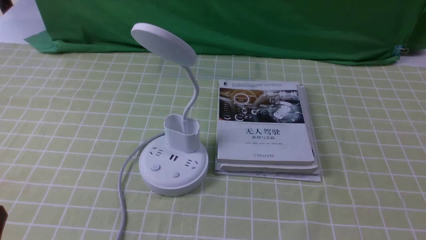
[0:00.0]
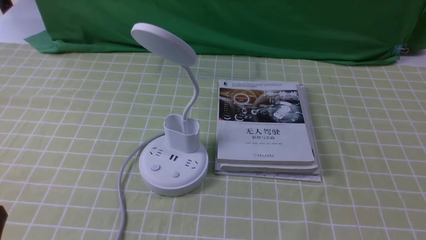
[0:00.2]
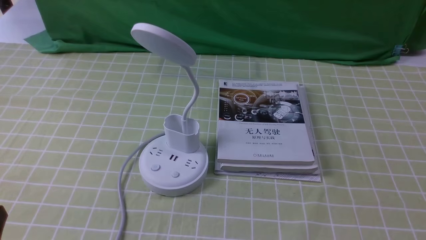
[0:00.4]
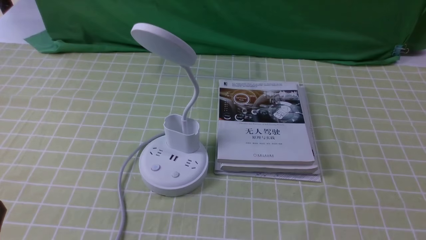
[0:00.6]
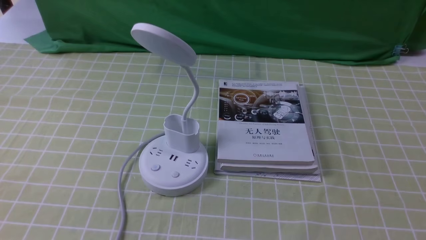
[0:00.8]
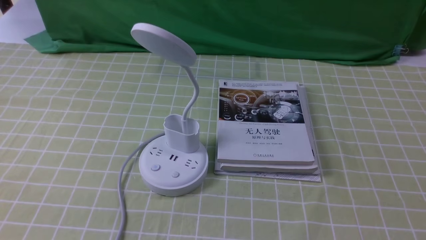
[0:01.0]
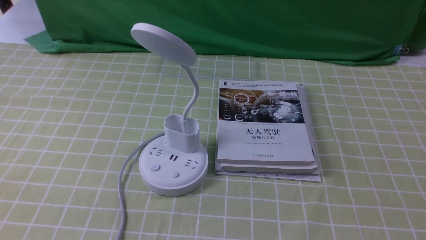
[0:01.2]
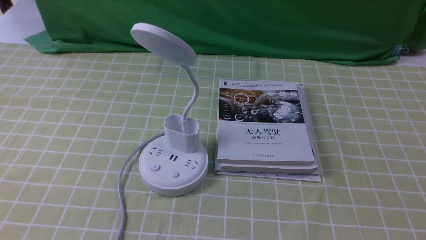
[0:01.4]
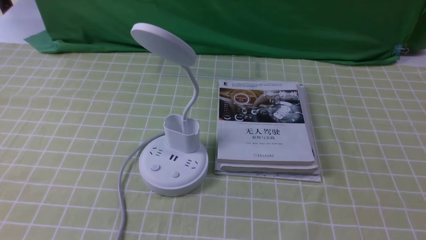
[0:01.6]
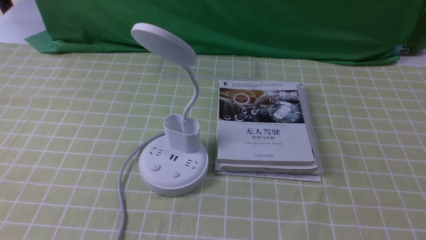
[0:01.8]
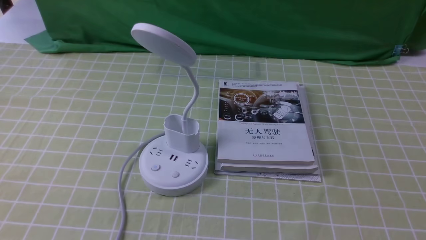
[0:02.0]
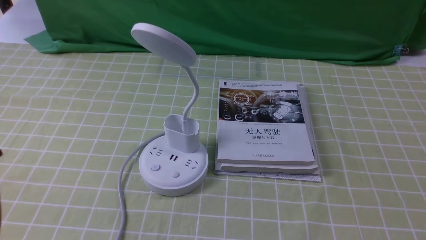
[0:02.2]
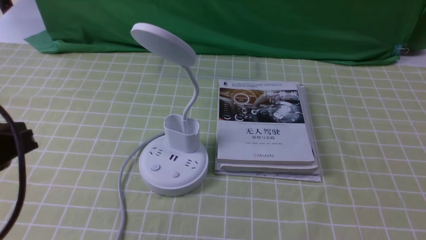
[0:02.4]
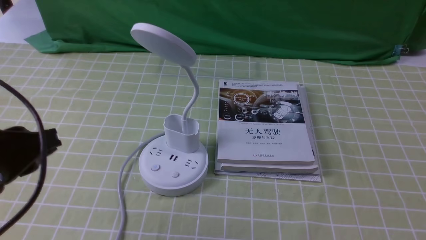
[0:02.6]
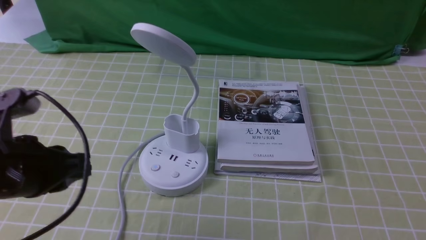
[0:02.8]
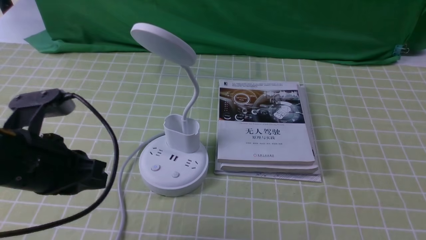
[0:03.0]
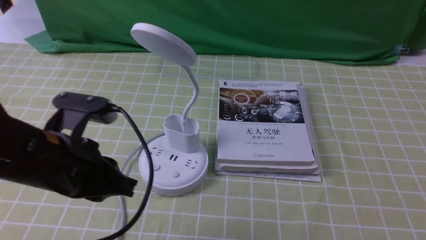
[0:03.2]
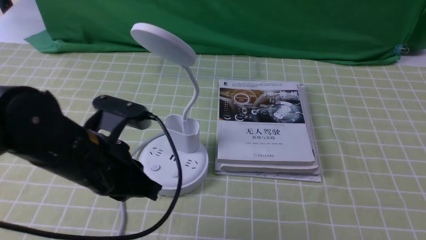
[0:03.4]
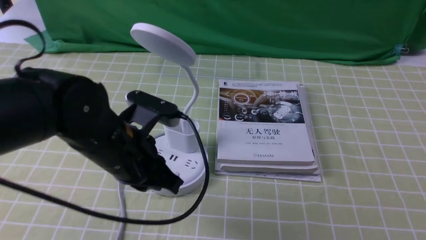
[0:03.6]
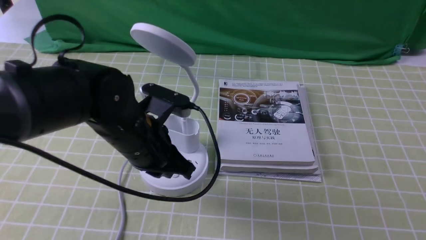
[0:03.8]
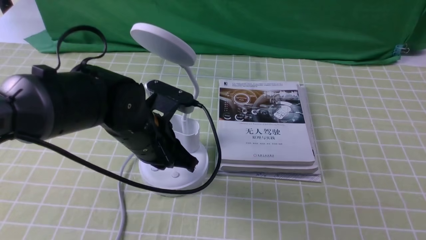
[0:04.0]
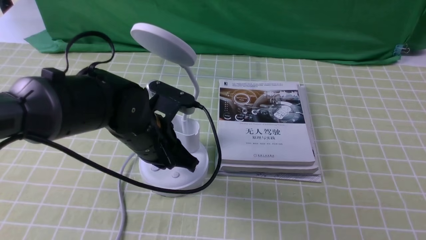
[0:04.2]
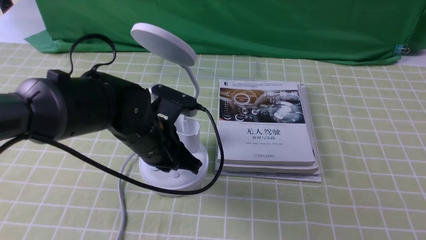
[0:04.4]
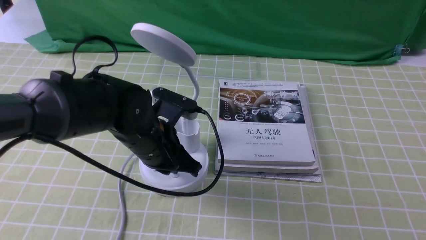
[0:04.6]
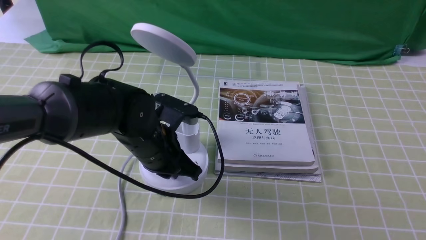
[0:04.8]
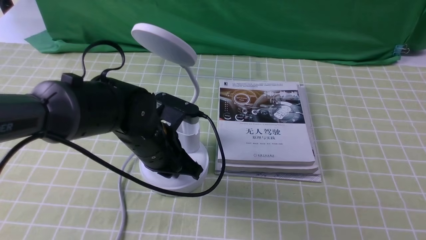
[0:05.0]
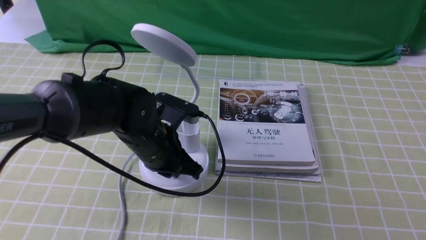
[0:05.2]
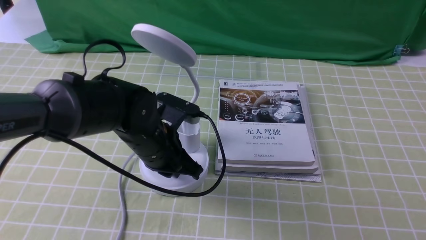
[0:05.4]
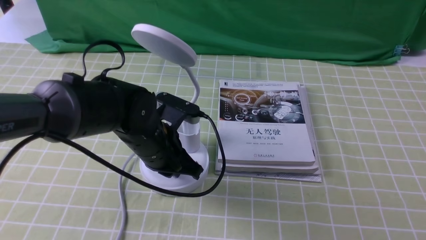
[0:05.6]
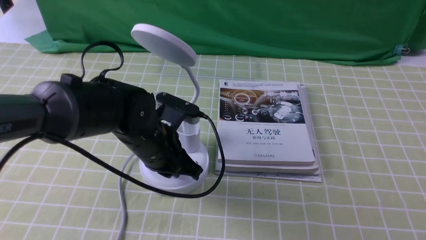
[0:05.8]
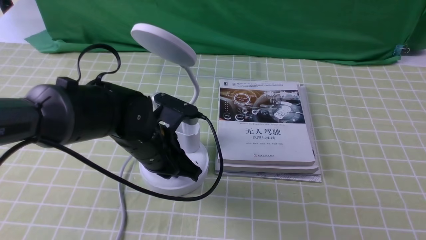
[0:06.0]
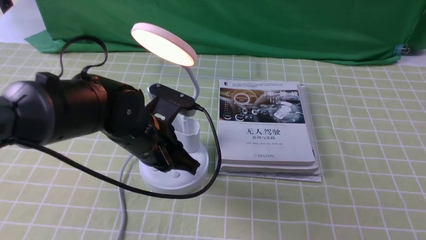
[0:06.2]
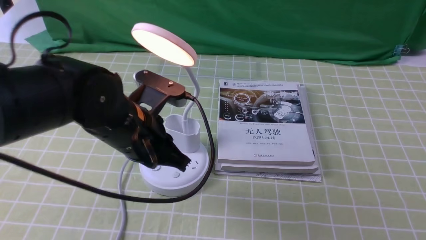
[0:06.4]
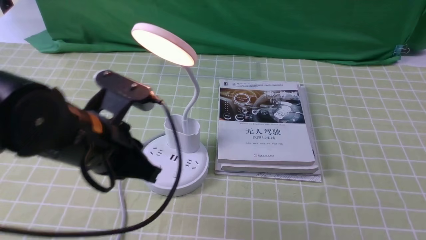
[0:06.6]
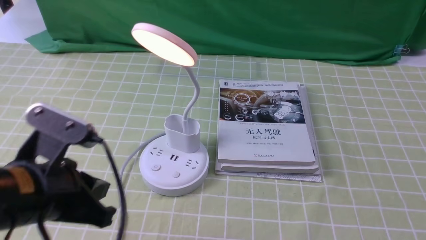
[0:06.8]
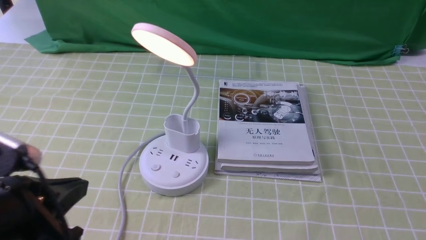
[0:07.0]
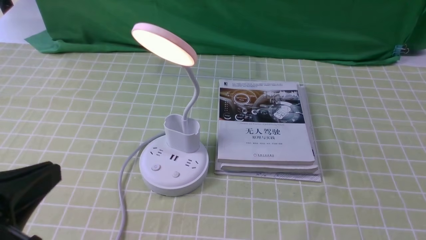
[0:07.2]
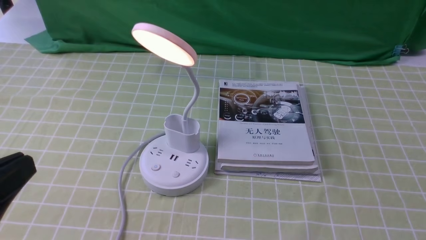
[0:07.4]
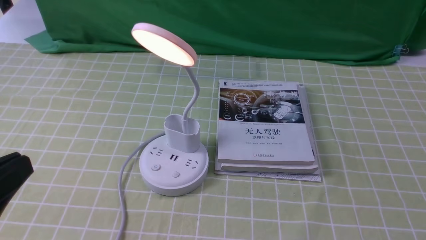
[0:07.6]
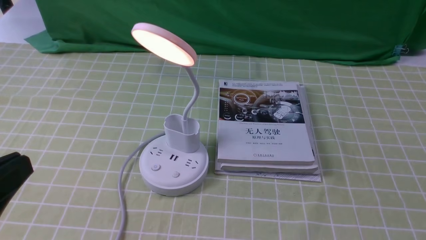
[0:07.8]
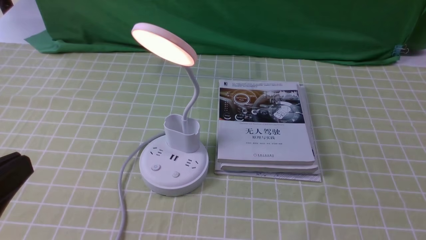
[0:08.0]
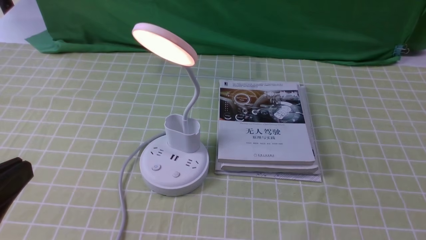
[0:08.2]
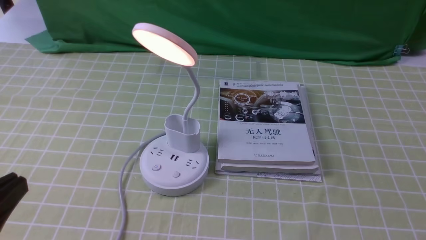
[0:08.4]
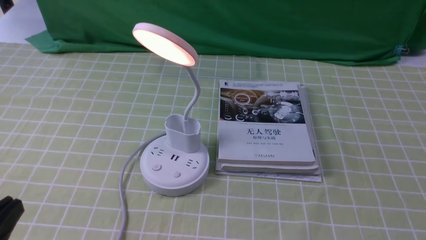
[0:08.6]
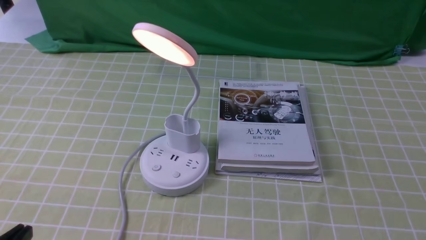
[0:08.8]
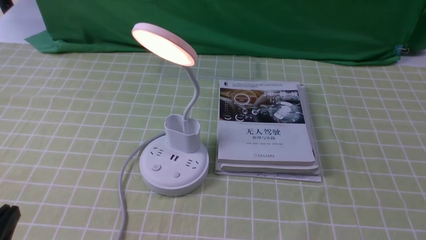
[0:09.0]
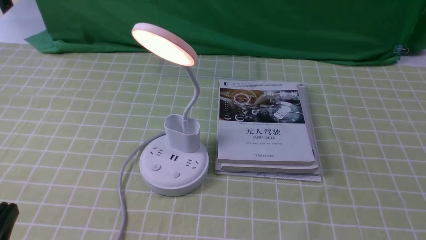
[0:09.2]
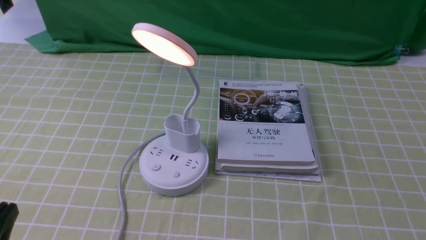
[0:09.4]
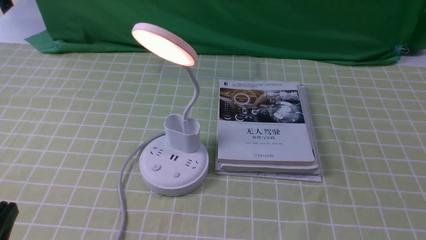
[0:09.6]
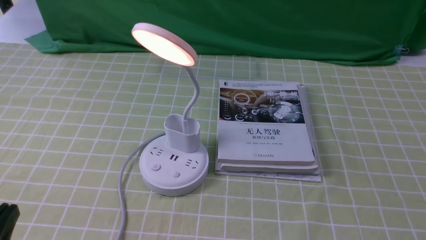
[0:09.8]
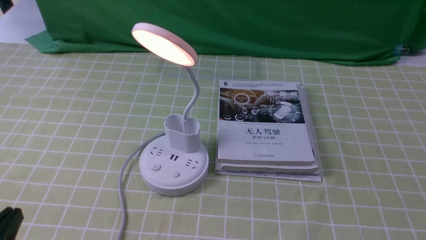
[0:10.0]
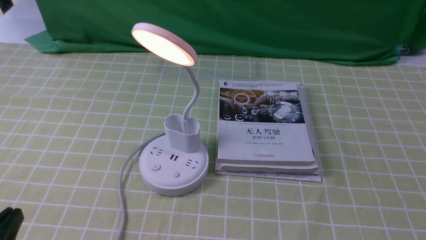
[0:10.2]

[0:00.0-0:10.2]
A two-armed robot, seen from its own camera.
Step, 0:00.0 to 0:06.2: use the left arm to press the button switch on the lamp holder.
0:01.4 to 0:03.0: The left gripper is displaced forward by roughly 15 cm.
0:03.0 to 0:04.4: The left gripper moves to the right, forward and downward, approximately 20 cm.
0:04.4 to 0:05.8: The grippers stay close to where they were, moving slightly.
0:05.8 to 0:07.2: The left gripper goes some 25 cm backward, to the left and upward.
0:07.2 to 0:08.8: The left gripper travels backward and downward by approximately 10 cm.
